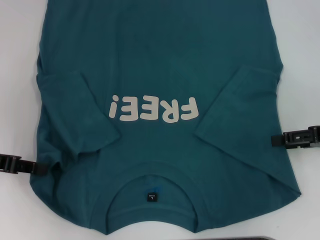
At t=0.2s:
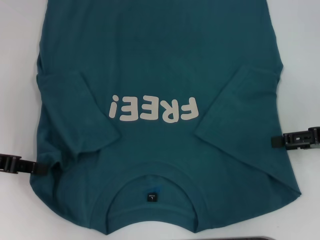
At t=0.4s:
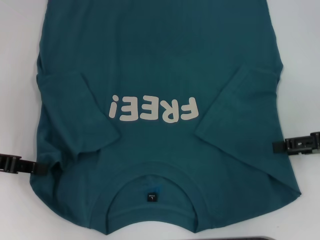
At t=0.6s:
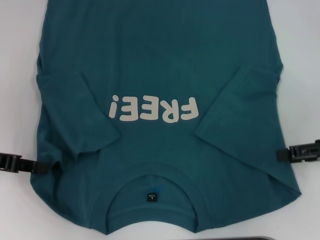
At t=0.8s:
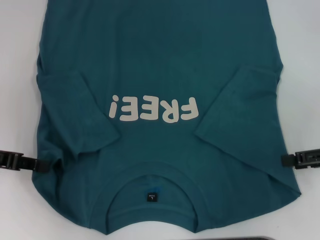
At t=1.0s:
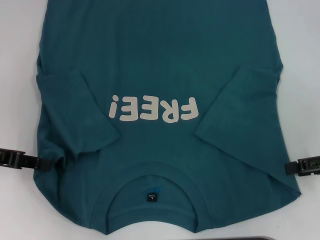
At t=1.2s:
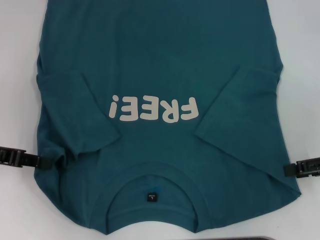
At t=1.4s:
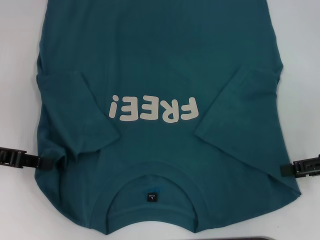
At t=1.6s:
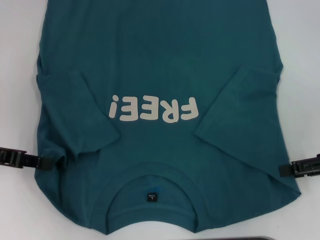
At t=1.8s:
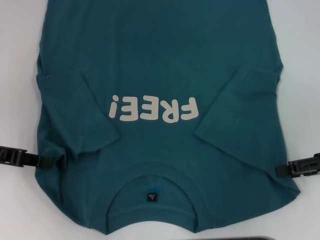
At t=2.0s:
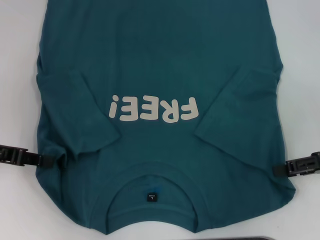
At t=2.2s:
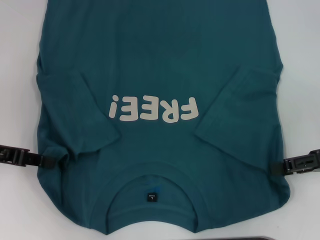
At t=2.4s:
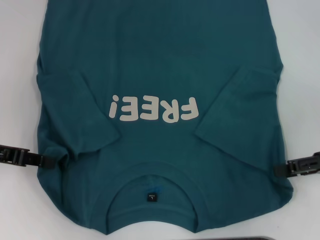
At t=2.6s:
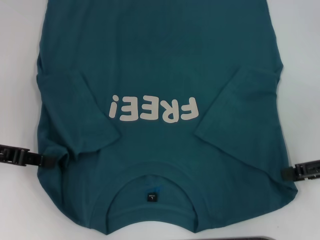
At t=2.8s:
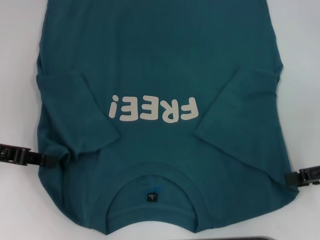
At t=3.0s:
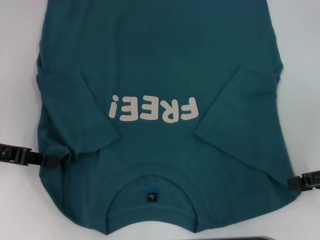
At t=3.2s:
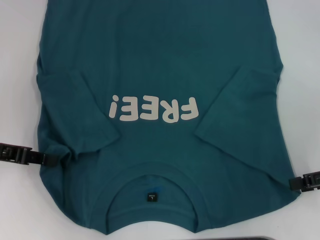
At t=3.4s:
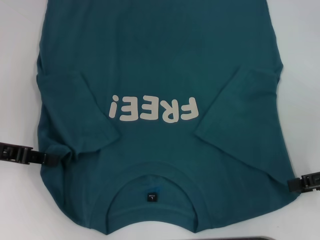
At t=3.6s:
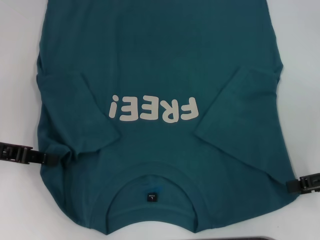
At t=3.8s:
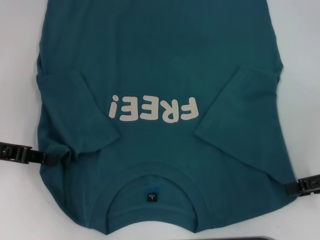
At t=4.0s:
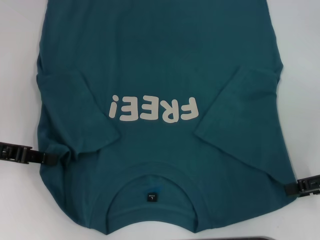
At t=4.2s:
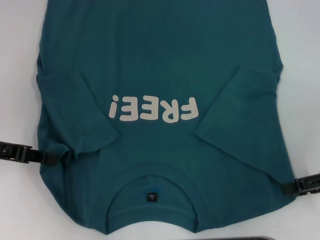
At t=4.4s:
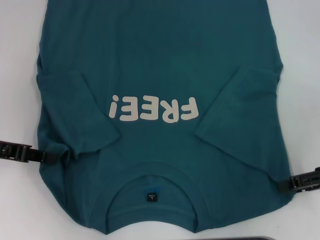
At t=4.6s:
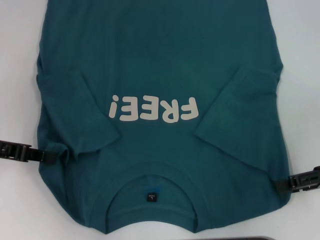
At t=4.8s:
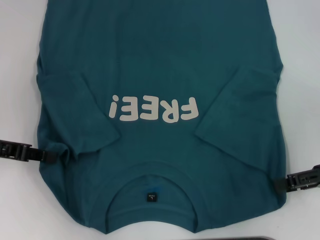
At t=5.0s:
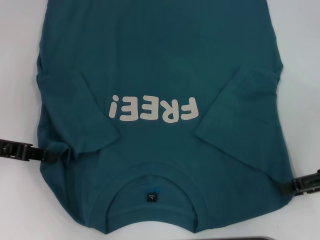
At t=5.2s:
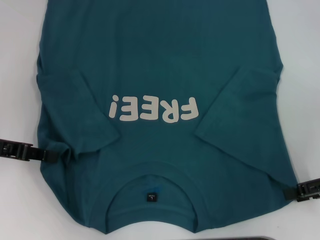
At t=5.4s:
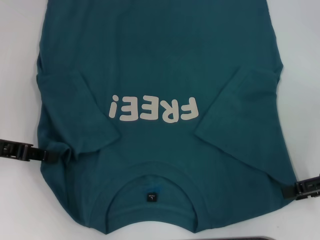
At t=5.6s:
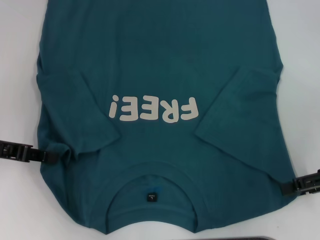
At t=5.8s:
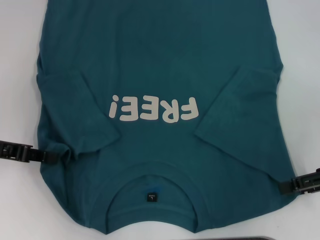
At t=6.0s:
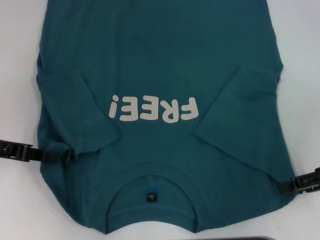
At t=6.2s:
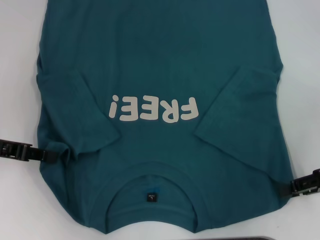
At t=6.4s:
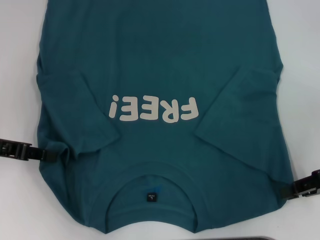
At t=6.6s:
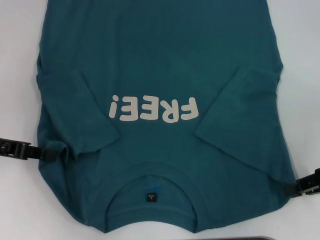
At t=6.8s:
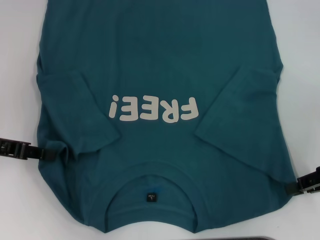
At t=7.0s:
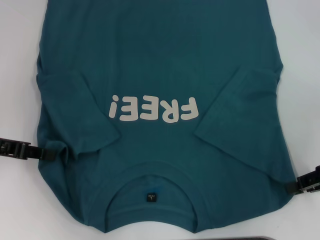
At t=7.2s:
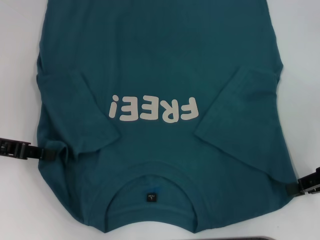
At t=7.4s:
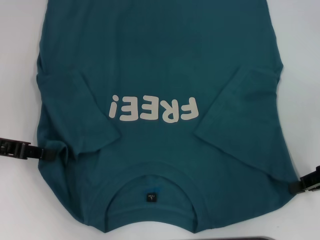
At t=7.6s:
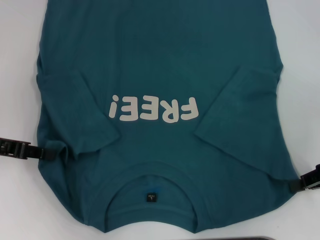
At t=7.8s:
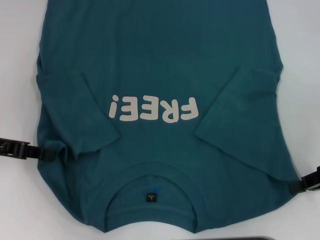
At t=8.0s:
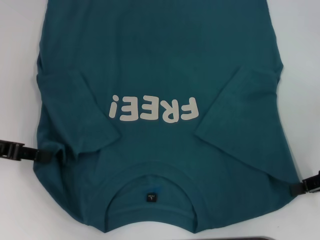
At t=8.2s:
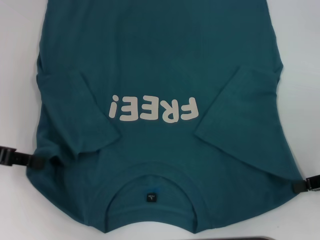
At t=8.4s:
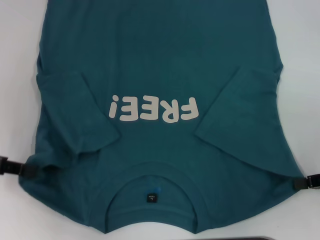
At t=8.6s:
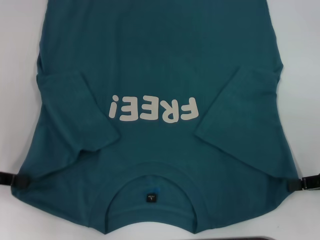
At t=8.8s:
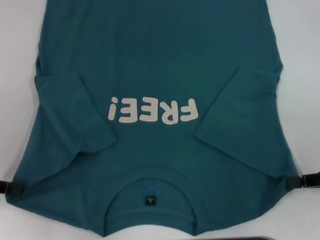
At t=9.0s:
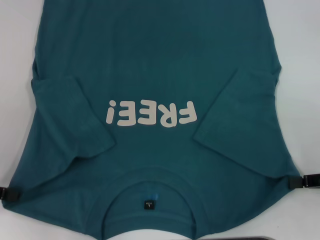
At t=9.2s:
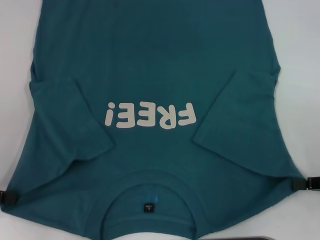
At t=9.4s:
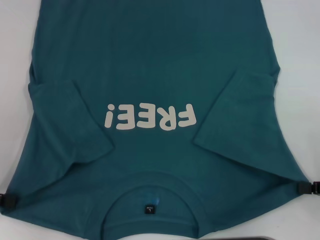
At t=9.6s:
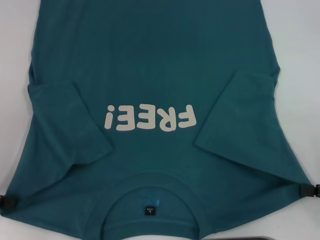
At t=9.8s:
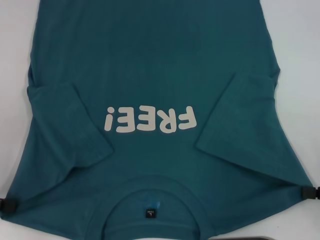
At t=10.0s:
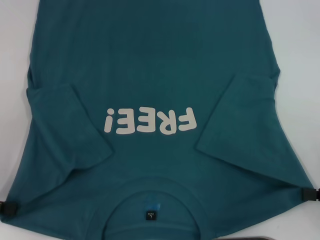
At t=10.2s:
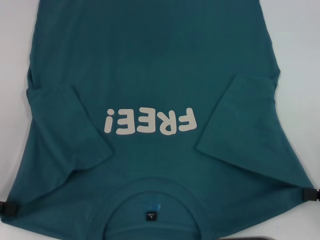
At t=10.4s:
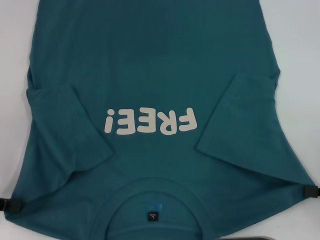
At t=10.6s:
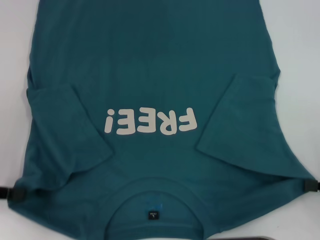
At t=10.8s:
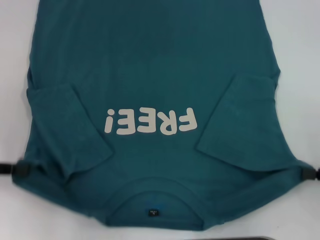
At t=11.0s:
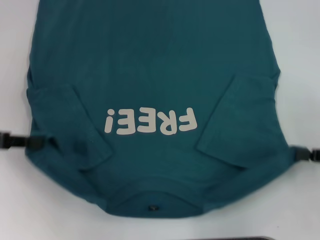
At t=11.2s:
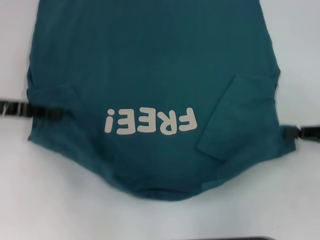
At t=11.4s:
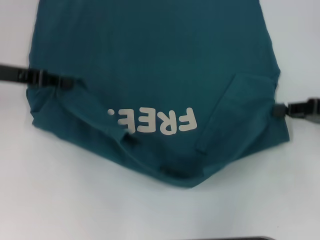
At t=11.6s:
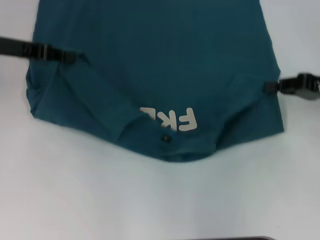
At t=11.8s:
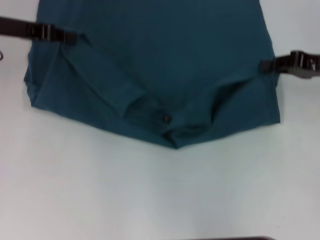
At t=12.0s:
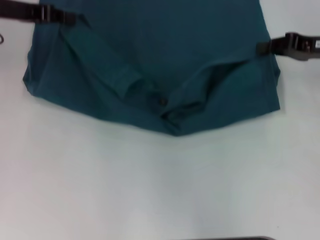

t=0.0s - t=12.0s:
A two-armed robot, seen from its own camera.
Step, t=0.0s - t=6.8s: Grab the bottom right corner with your right hand.
t=0.0s - t=4.4s: The grippers stay close to where they were, moving slightly.
t=4.4s - t=6.0s: Both grippers stay about where they are.
t=6.0s - t=7.6s: The right gripper closes.
t=7.6s - t=9.0s: The left gripper travels backward and to the left by some 5 cm.
t=9.0s - t=10.4s: The grippers make only small movements.
t=10.4s - t=12.0s: The left gripper is displaced forward, to the right and upward by roughly 25 cm. The right gripper heads forward, covering approximately 20 cm.

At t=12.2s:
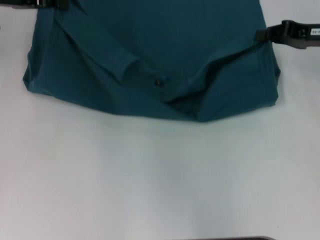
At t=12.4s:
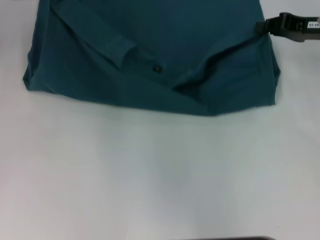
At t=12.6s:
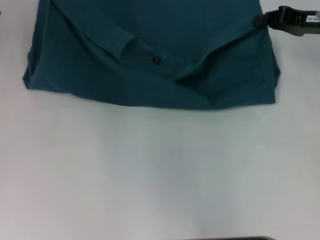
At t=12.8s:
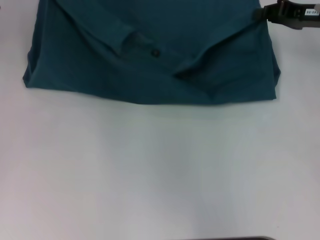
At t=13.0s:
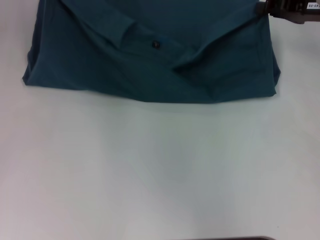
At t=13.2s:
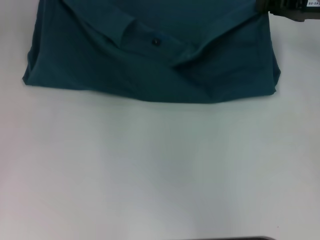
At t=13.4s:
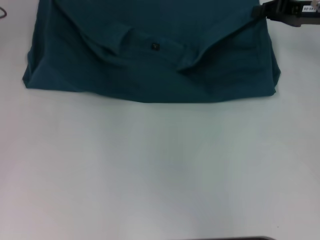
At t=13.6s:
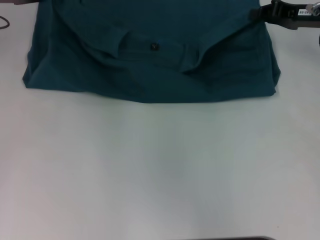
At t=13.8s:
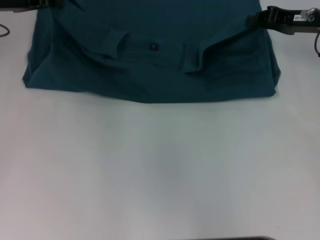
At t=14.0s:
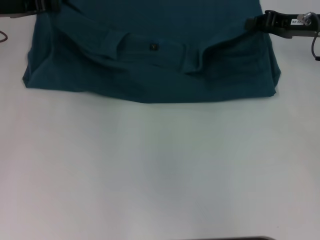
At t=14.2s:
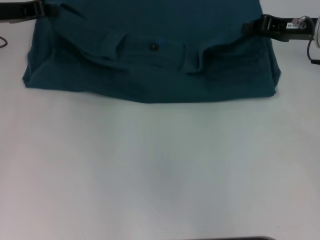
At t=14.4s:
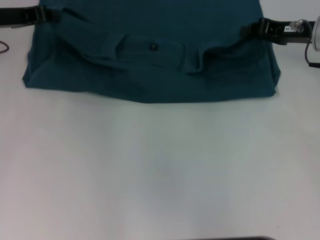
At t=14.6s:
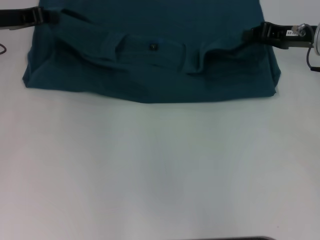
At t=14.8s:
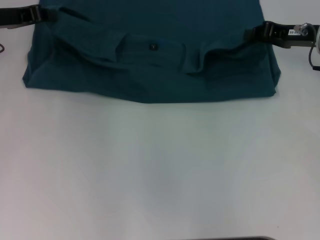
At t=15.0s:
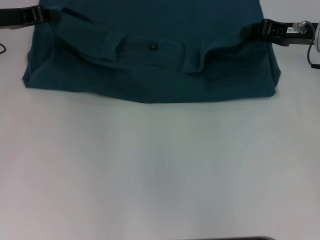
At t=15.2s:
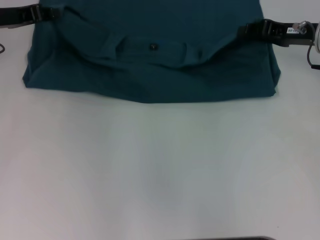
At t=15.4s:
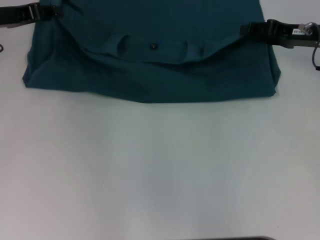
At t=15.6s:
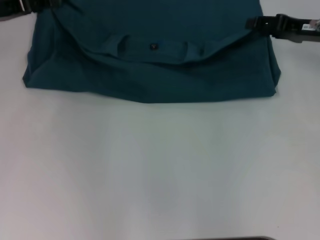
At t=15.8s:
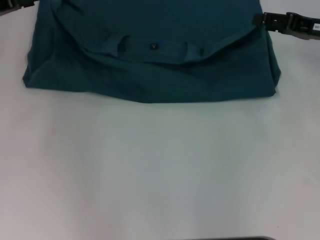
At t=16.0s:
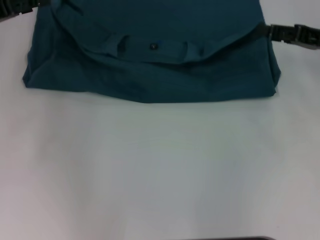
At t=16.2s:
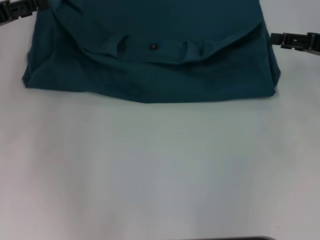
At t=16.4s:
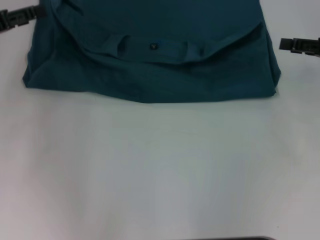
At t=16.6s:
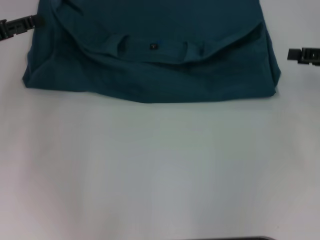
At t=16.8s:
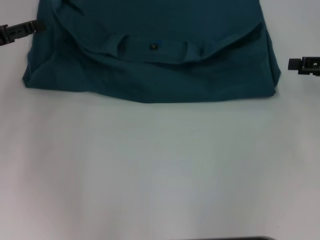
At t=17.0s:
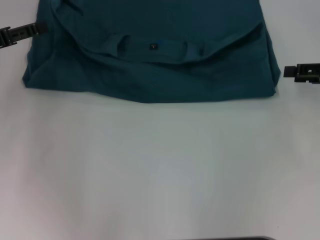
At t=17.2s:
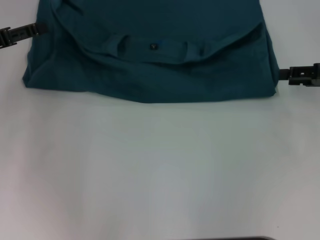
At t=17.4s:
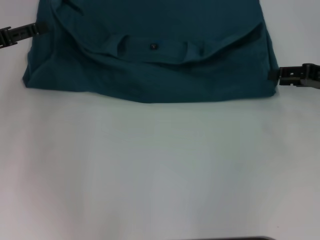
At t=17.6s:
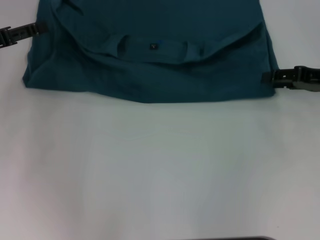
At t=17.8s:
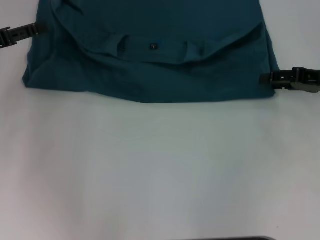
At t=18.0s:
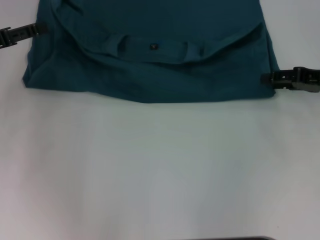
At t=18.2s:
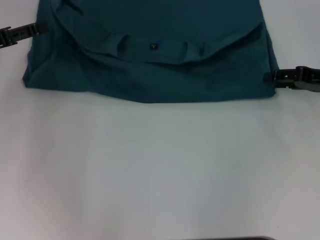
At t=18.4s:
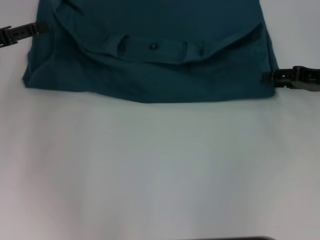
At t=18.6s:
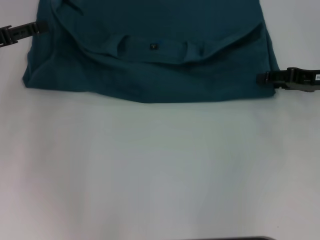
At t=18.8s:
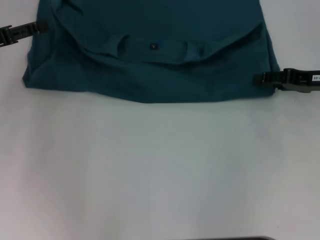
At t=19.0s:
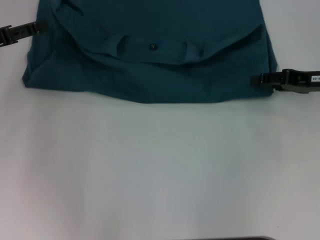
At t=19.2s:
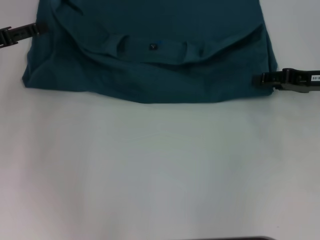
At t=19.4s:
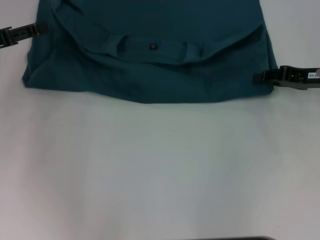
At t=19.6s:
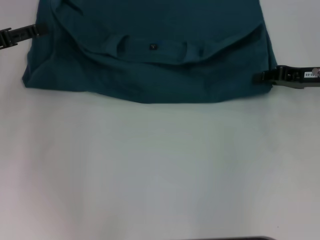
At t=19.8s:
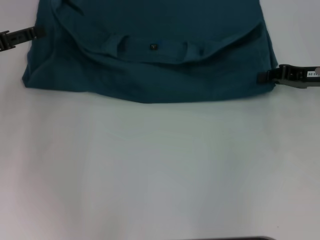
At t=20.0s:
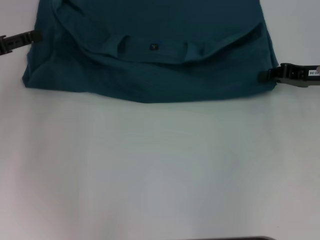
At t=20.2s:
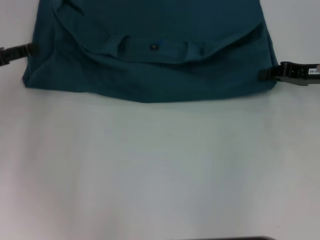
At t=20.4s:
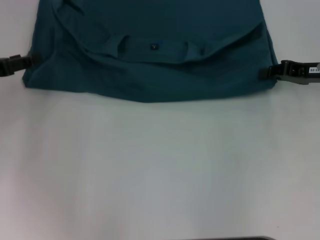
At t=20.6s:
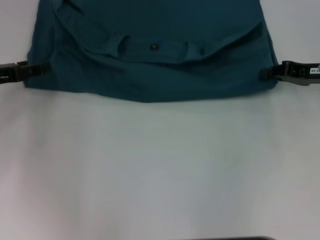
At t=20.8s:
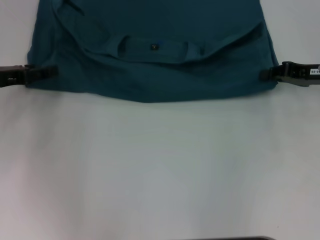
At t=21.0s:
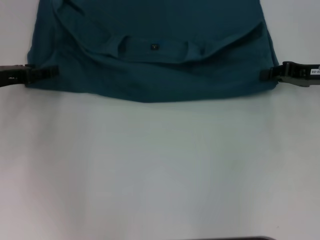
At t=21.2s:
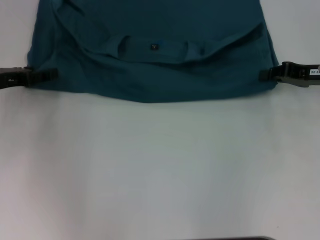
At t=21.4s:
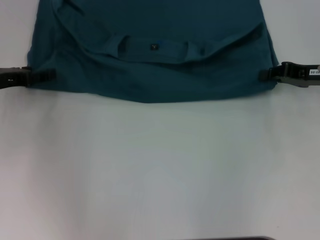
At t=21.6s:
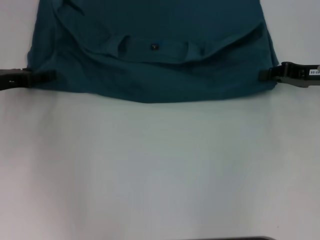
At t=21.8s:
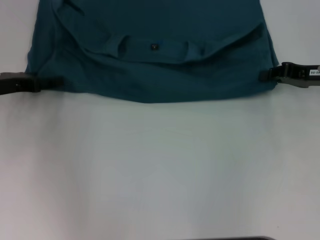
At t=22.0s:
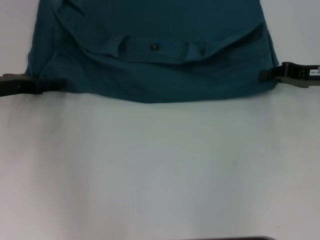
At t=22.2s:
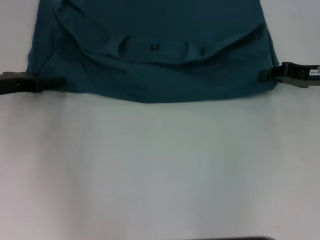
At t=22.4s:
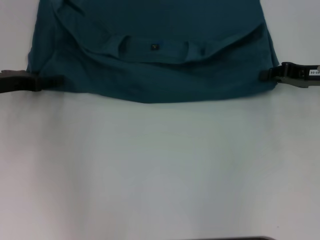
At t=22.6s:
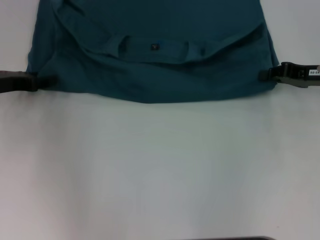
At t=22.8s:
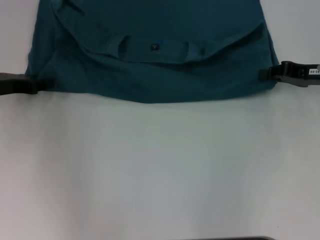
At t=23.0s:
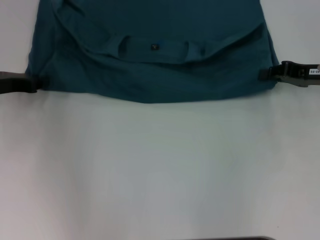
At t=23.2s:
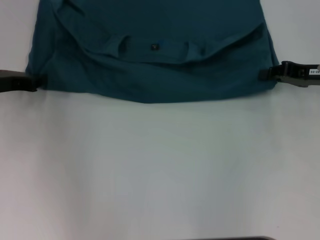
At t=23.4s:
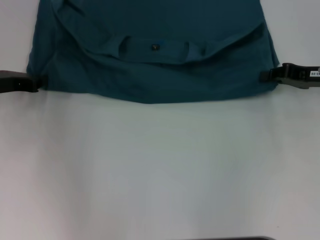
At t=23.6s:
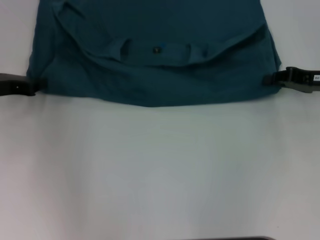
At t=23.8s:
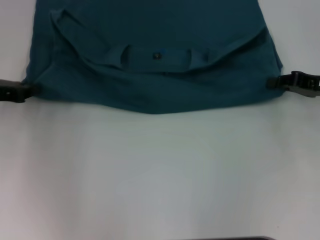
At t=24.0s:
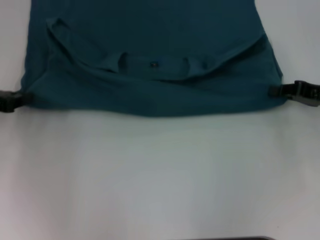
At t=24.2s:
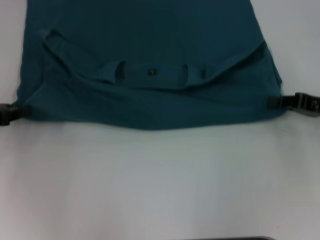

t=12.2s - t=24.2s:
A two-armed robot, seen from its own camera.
Step, t=12.2s - t=15.8s: Fold the clothes to the left.
Step, t=12.2s - t=15.8s: Fold the clothes to the right.
t=12.2s - t=15.2s: The grippers move only a little.
t=15.2s - t=16.6s: The right gripper travels to the right and backward by about 10 cm, and opens up; the left gripper shifts roughly 5 cm backward, and opens its fingers.
t=16.6s - t=18.2s: The grippers make only small movements.
t=18.2s - t=19.8s: The right gripper closes.
t=19.8s - t=21.2s: The grippers move only a little.
t=22.6s - t=24.2s: Both grippers move backward, about 5 cm. The left gripper closes up.
